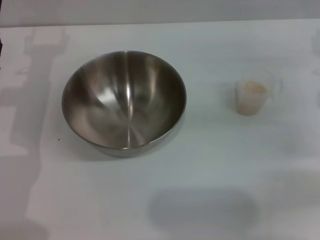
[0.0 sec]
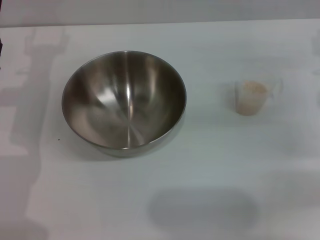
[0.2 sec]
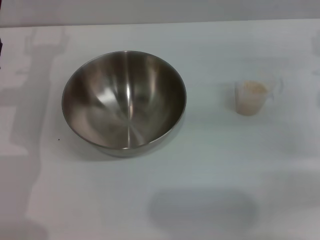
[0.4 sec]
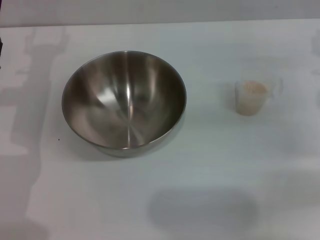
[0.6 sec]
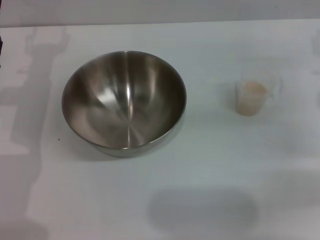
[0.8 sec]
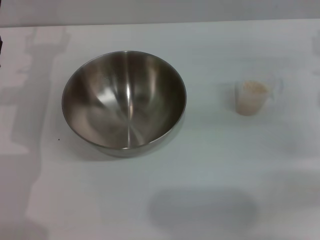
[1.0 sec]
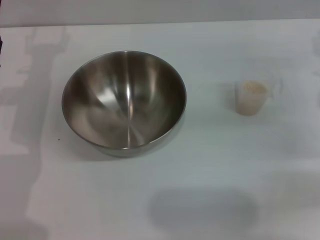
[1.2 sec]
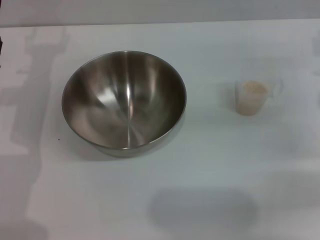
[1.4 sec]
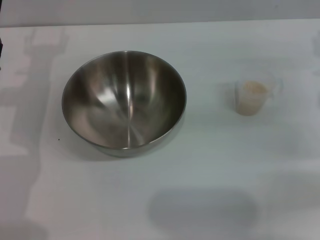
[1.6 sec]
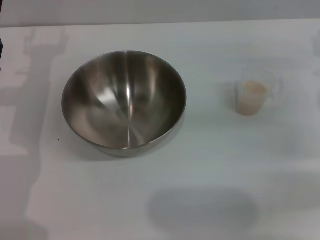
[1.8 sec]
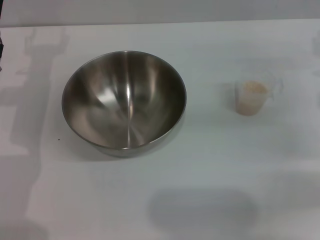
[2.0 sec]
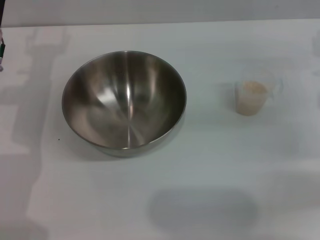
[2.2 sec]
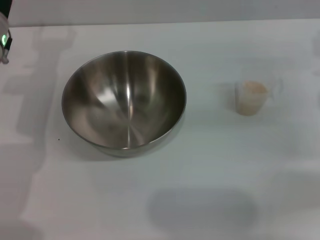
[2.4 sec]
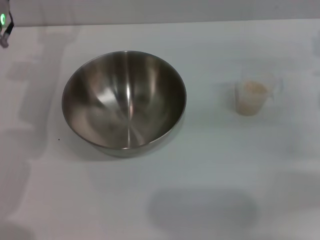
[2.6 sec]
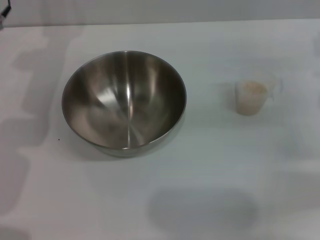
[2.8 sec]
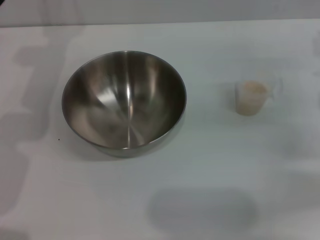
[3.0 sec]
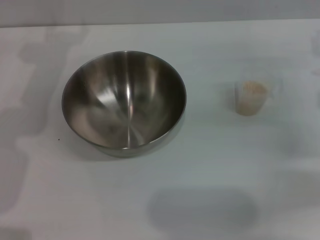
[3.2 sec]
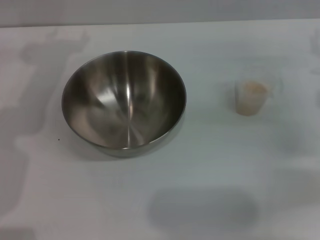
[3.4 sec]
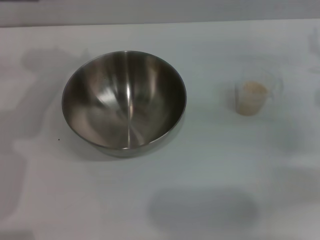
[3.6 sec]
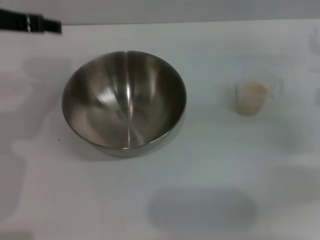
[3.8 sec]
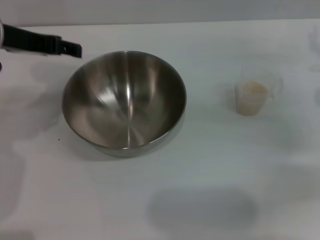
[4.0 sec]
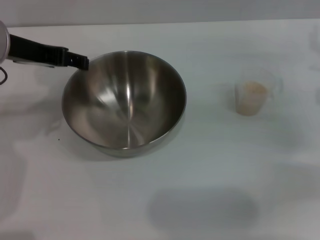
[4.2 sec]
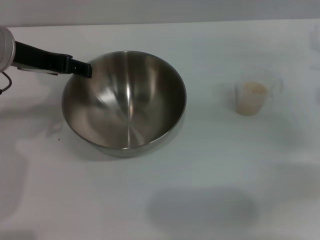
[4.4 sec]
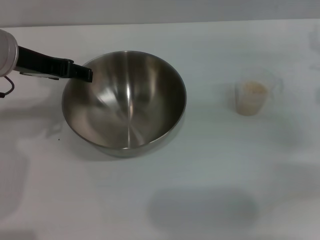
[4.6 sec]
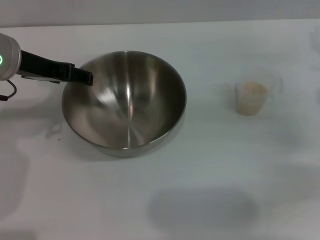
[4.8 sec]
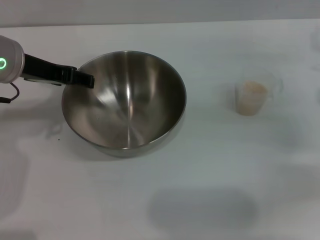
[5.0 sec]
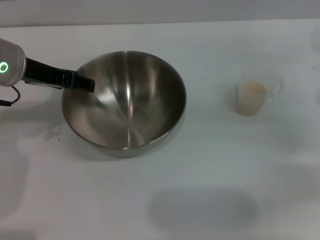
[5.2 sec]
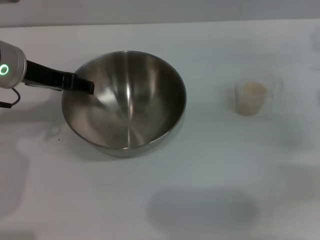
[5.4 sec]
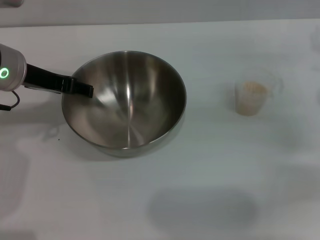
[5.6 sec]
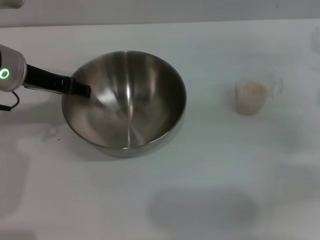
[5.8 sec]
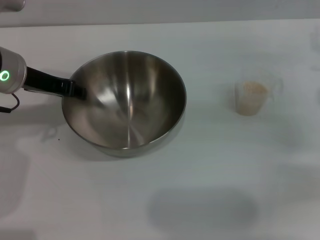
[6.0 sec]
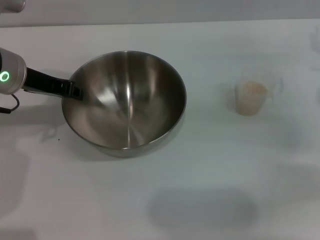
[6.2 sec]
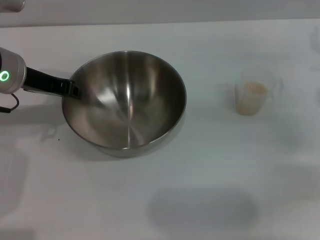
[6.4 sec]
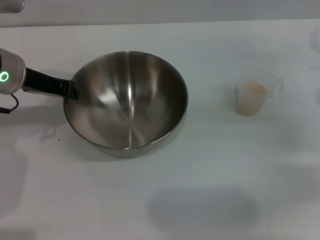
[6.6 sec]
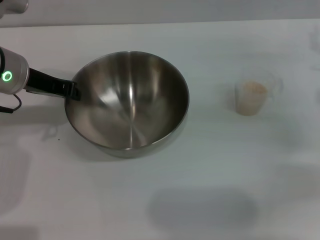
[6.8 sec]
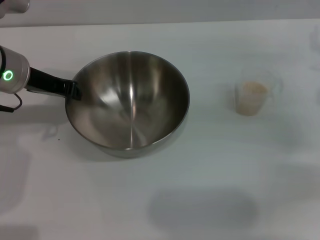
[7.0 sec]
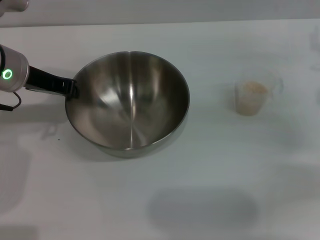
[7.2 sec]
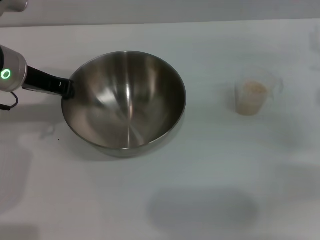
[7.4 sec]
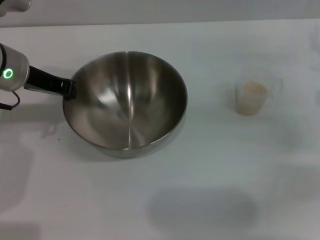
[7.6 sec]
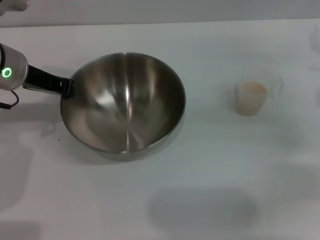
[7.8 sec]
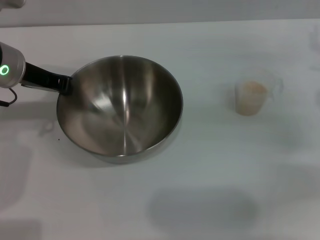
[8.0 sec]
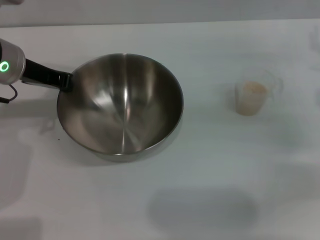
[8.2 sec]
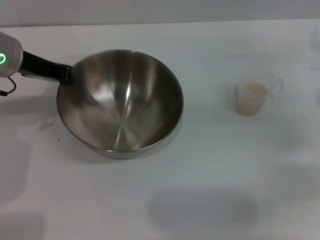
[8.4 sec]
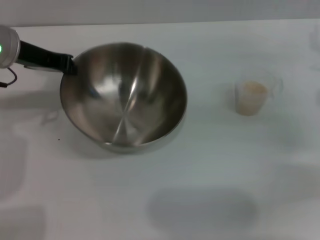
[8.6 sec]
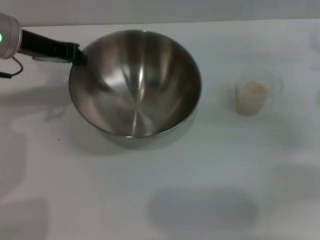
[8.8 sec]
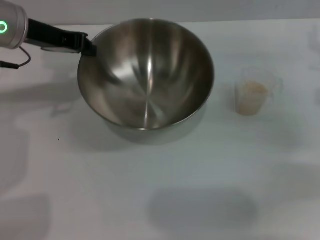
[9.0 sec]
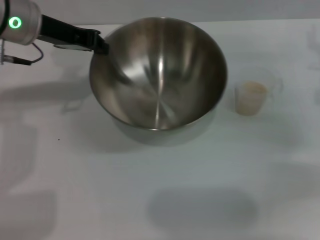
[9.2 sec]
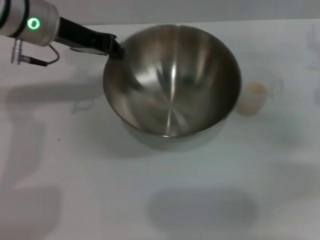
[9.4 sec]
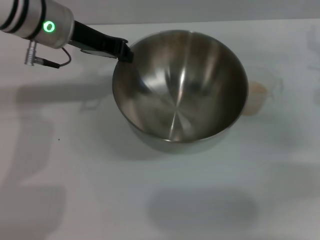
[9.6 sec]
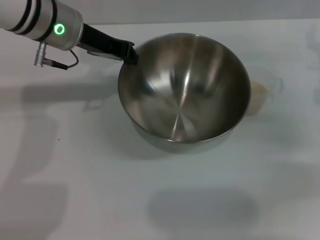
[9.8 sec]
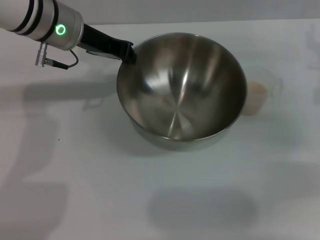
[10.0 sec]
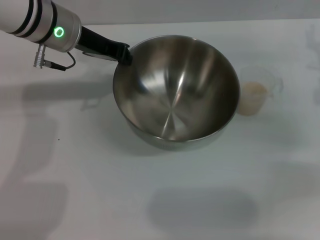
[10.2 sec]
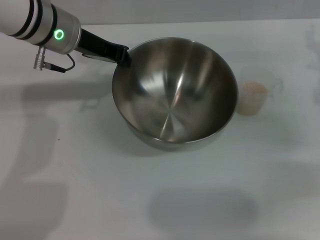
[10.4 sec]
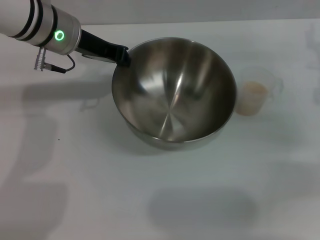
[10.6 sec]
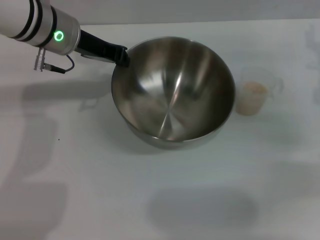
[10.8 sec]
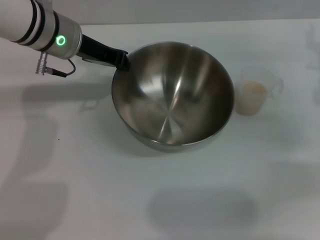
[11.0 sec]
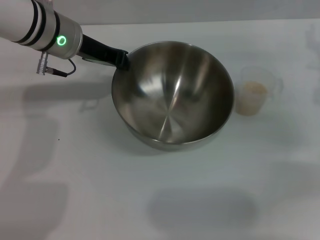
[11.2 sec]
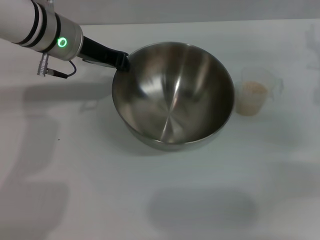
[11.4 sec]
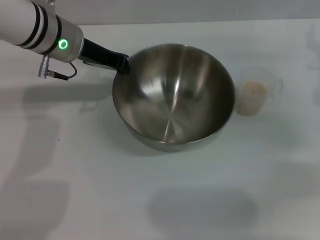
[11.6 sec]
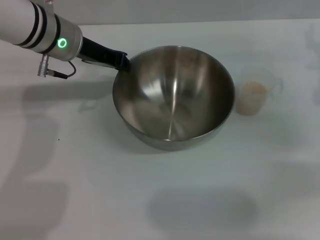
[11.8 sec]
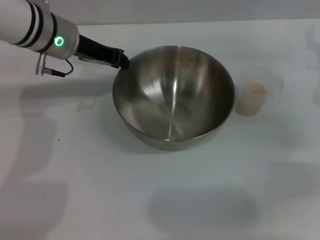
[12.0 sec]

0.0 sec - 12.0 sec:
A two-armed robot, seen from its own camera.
Task of the whole recording: Place the bowl in the middle of the table with one hand and pour the rice from the grain cup into it with the other hand.
Step, 0.0 sec - 9.2 sec: Pick up the bowl with the left gripper.
0.0 sec - 1.6 sec: Neither gripper changes place.
3.0 sec - 4.4 sec: The left gripper travels backward by approximately 10 cm.
4.4 sec - 6.0 sec: The grippers make only small movements.
6.0 sec - 7.6 sec: The left gripper closes up.
9.0 sec - 10.4 sec: The left gripper goes approximately 5 cm to the right.
10.4 sec - 12.0 sec: The grippers move only a little.

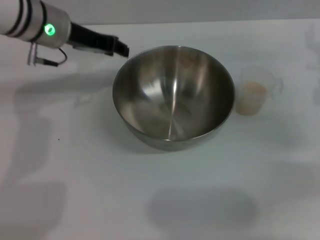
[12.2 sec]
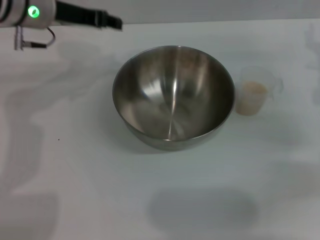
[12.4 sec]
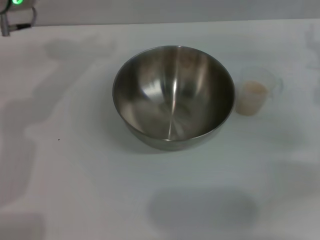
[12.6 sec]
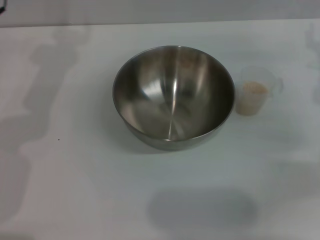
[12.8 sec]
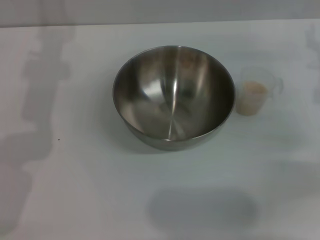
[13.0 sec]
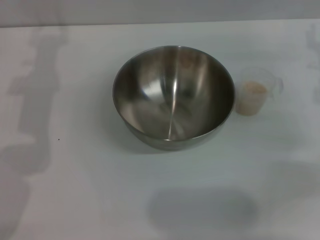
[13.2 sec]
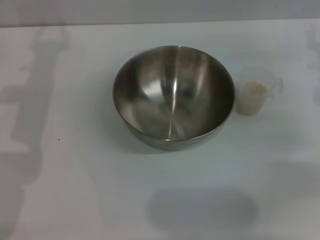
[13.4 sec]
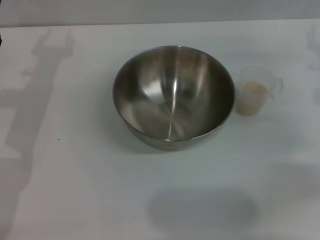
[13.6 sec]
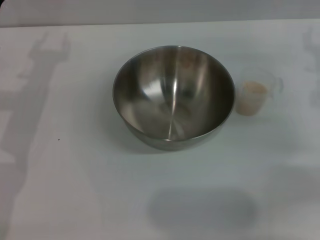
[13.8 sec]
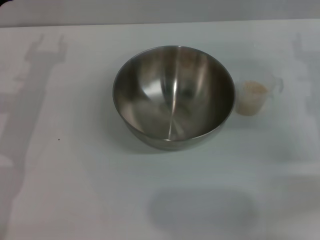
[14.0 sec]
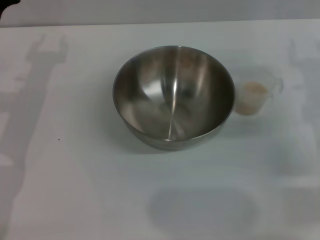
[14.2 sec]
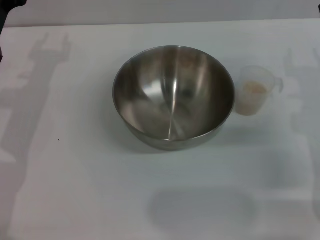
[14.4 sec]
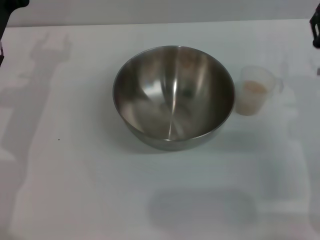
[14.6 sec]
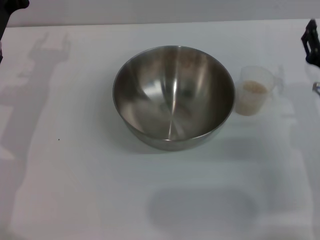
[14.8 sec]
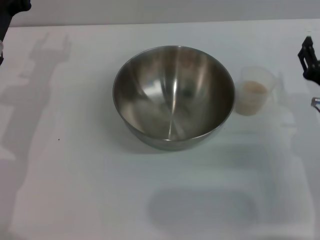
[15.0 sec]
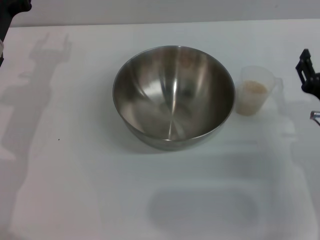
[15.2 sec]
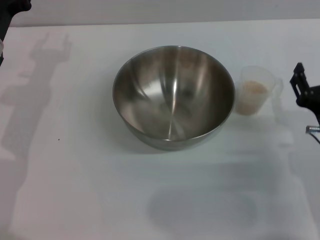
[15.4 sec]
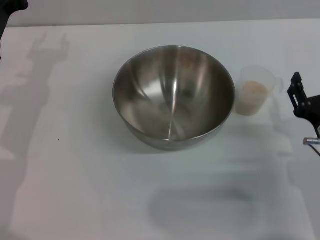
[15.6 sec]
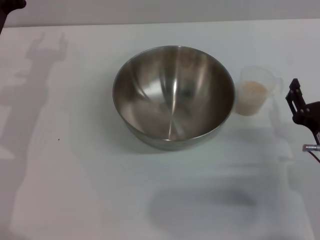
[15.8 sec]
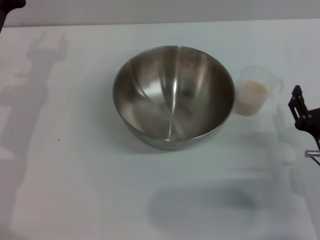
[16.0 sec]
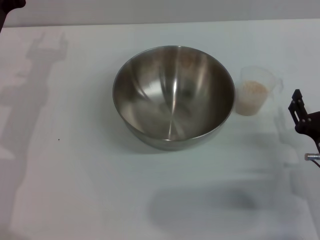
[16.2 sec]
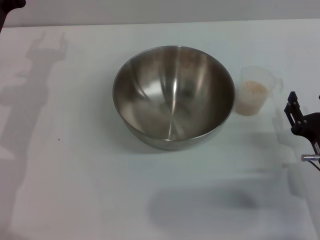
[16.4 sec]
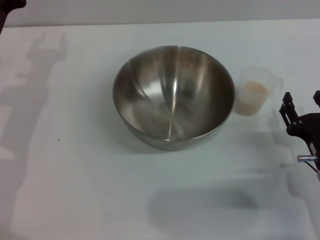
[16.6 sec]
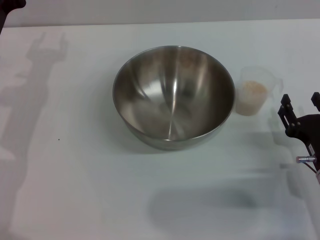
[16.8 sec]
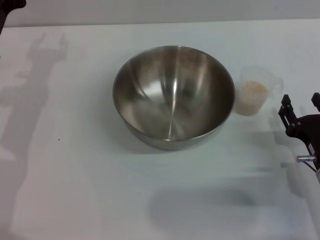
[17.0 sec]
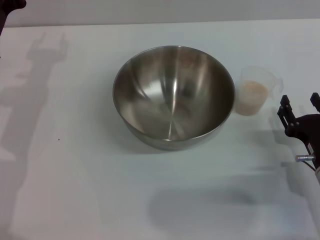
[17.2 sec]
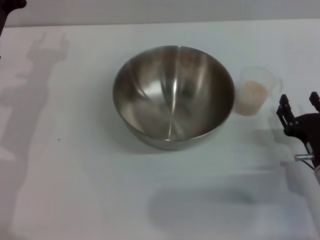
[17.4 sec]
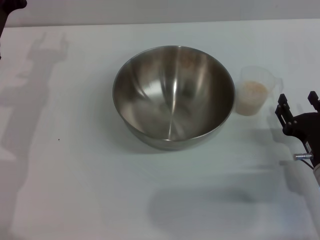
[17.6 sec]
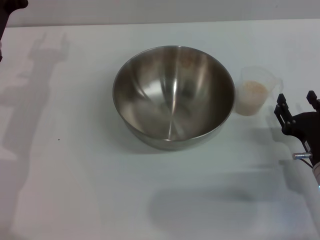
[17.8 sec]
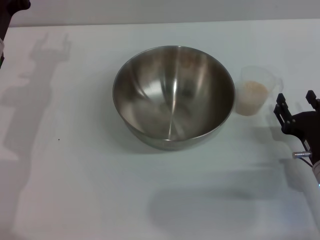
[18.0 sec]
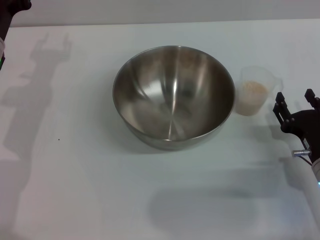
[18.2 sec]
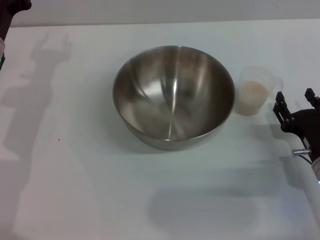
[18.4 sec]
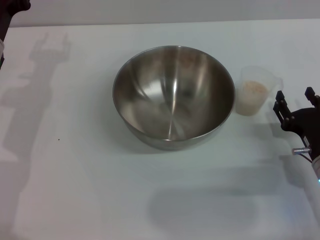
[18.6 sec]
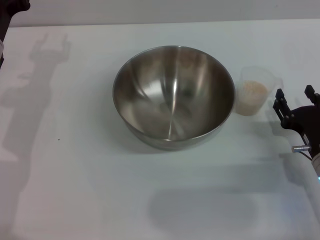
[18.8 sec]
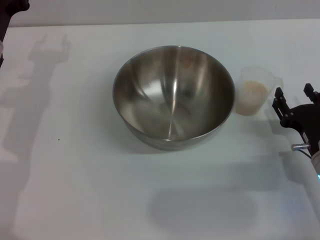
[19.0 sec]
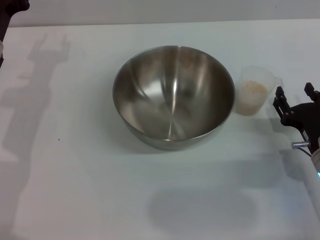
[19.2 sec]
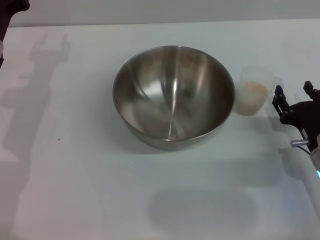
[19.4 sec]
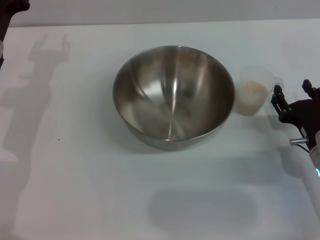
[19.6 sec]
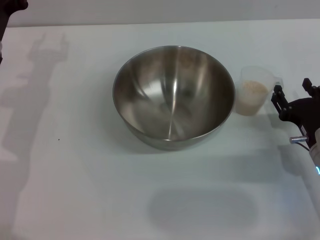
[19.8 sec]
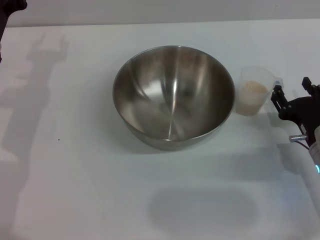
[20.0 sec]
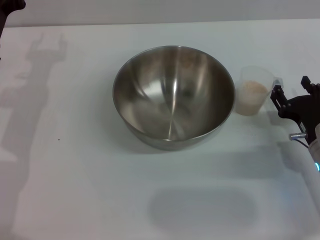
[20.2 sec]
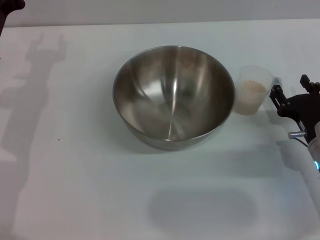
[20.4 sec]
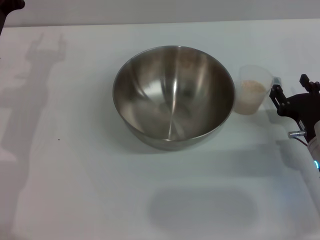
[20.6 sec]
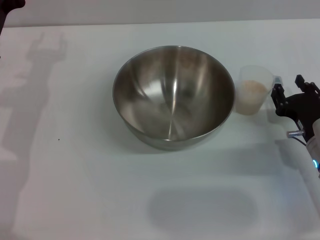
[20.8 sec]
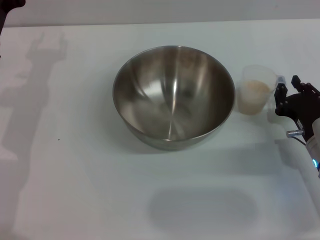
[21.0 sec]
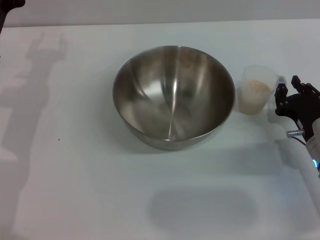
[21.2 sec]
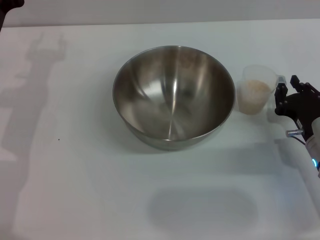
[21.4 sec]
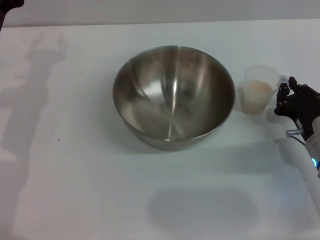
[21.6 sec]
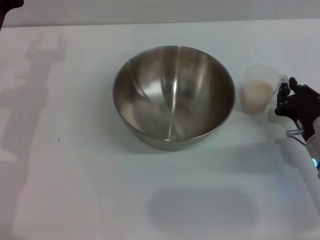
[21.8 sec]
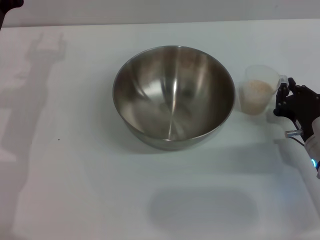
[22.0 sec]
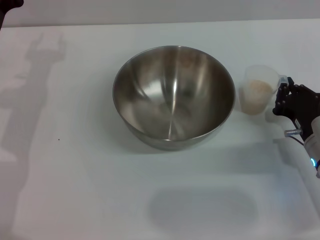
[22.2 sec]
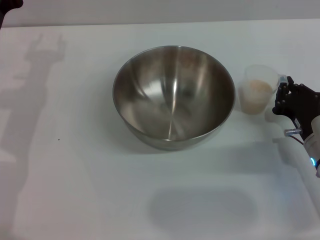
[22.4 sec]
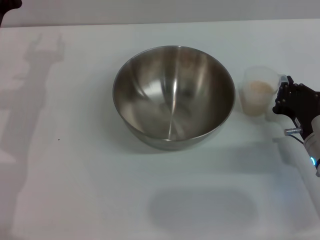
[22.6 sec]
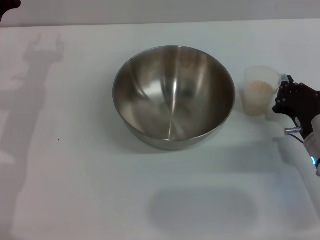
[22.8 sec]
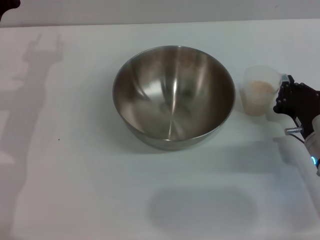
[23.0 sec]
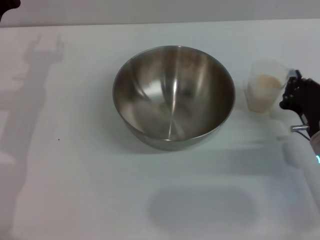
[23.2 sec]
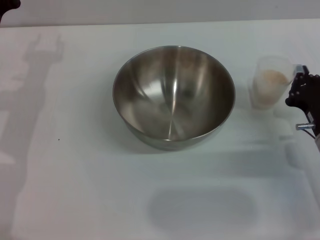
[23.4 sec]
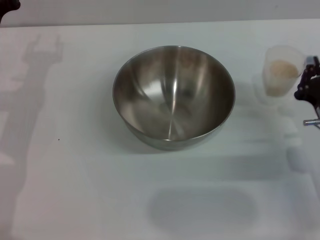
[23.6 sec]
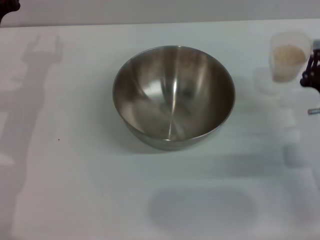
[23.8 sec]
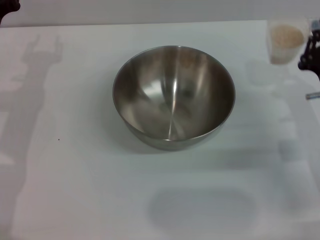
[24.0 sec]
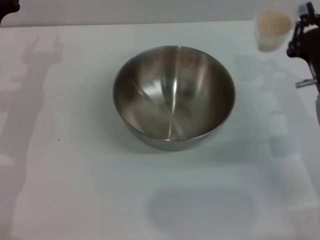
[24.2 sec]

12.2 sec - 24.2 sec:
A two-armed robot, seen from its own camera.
Task of the whole recording: Place the bowl in the middle of the table with one hand and pour the rice from the grain cup into it with the other hand.
Step, 12.2 sec - 23.4 sec: Pick up the cup with rice in it with the right gripper.
12.2 sec - 13.8 sec: The left gripper travels to the left, downward and backward by roughly 10 cm.
13.8 sec - 15.2 sec: The right gripper shifts roughly 15 cm backward and to the left.
15.2 sec - 16.6 sec: The right gripper shifts by some 5 cm.
16.6 sec - 19.8 sec: There are only small adjustments of the grippers.
19.8 sec - 21.2 sec: The right gripper closes.
21.2 sec - 22.6 sec: The right gripper closes.
22.6 sec - 24.2 sec: The right gripper is displaced upward by approximately 5 cm.
